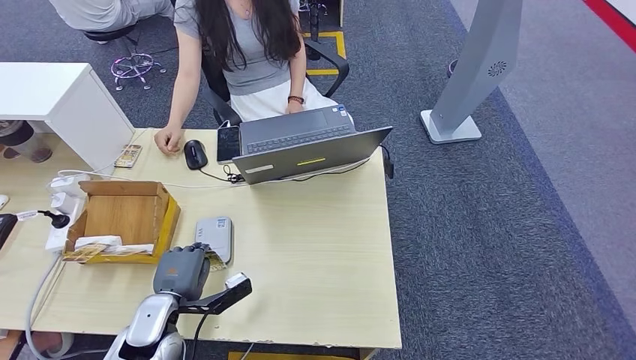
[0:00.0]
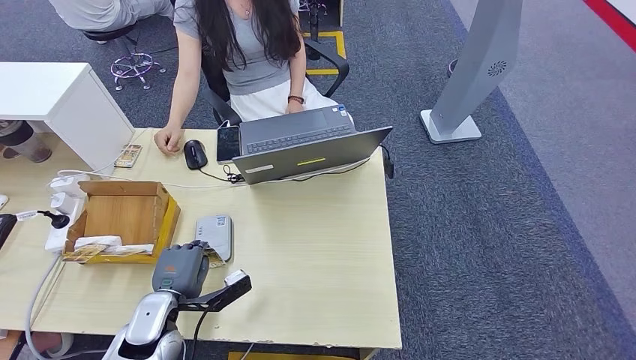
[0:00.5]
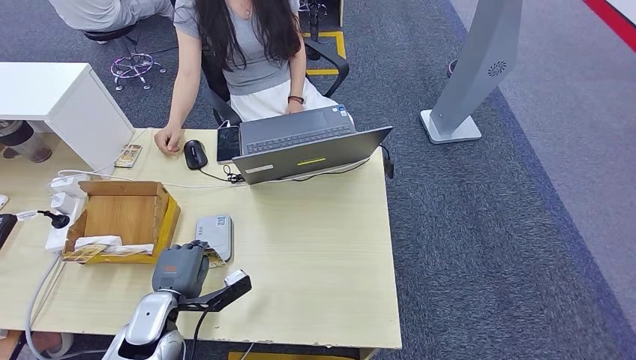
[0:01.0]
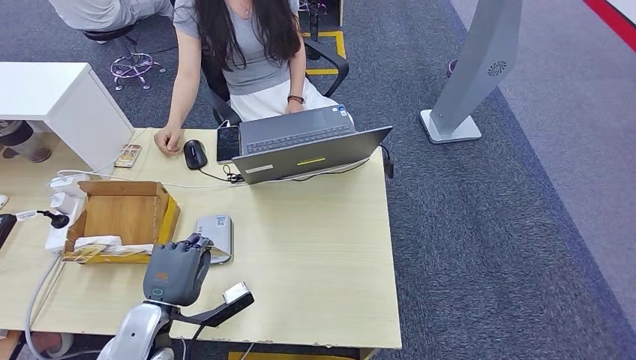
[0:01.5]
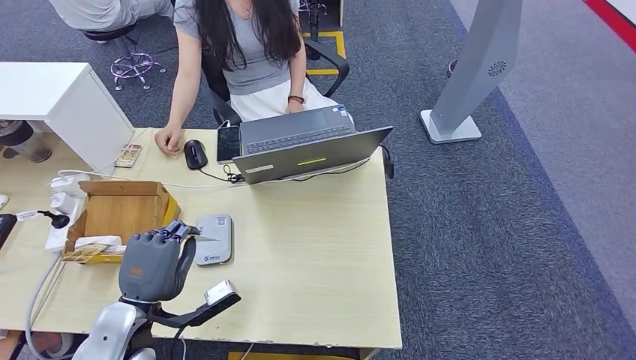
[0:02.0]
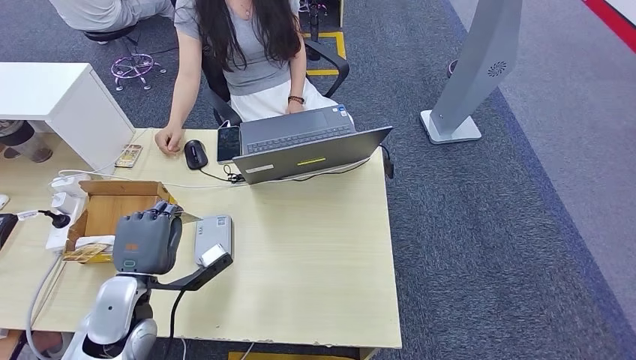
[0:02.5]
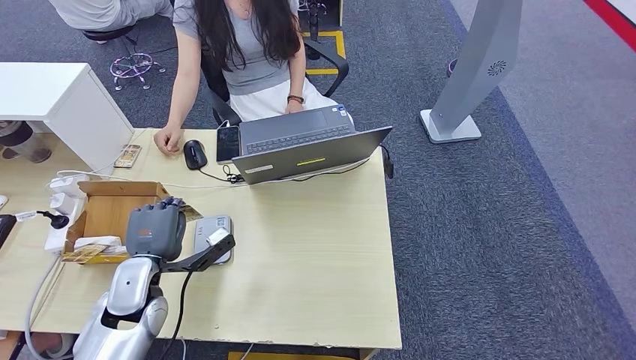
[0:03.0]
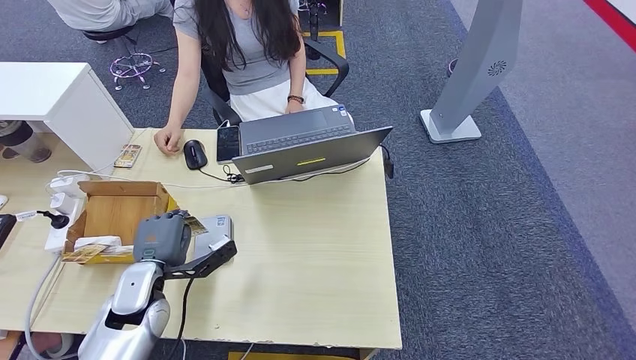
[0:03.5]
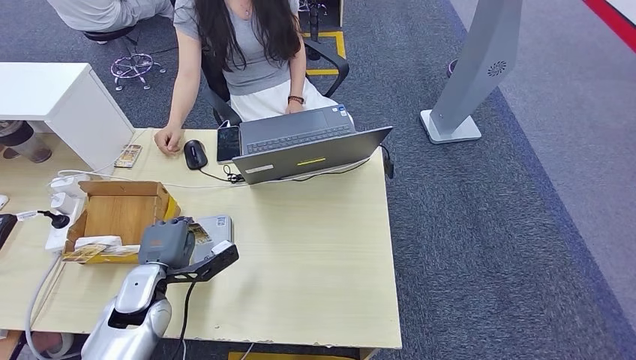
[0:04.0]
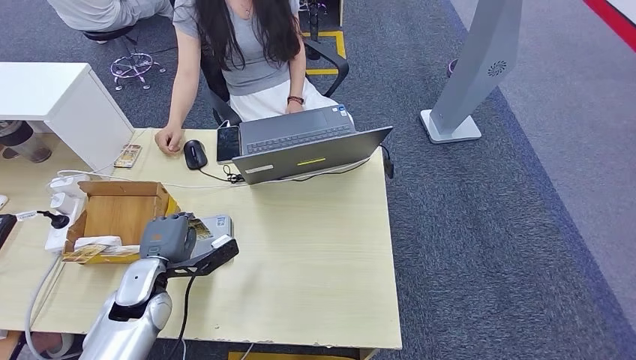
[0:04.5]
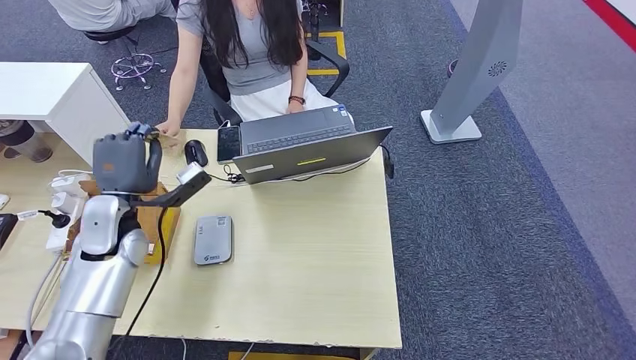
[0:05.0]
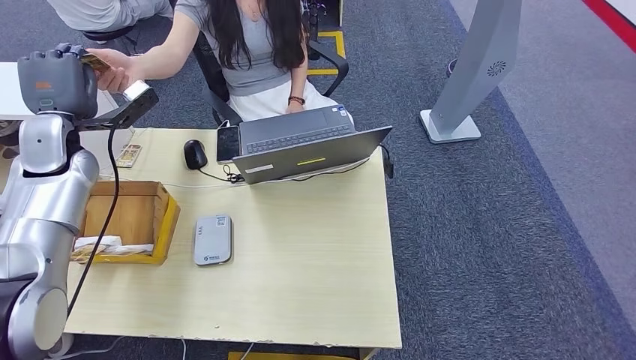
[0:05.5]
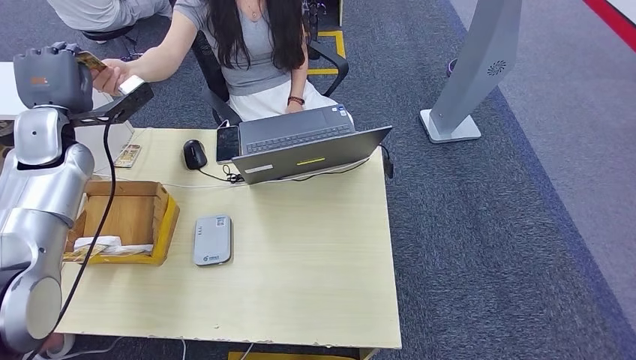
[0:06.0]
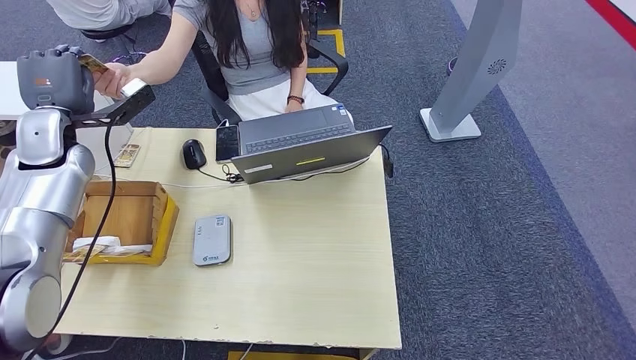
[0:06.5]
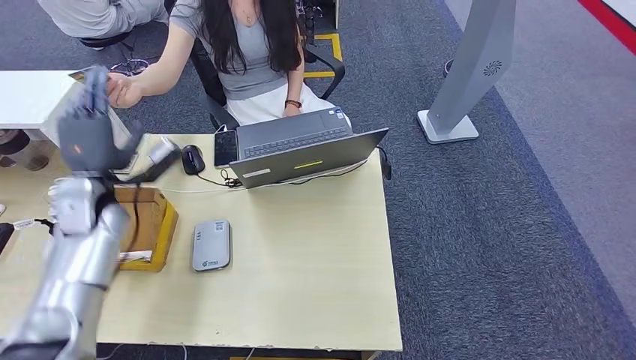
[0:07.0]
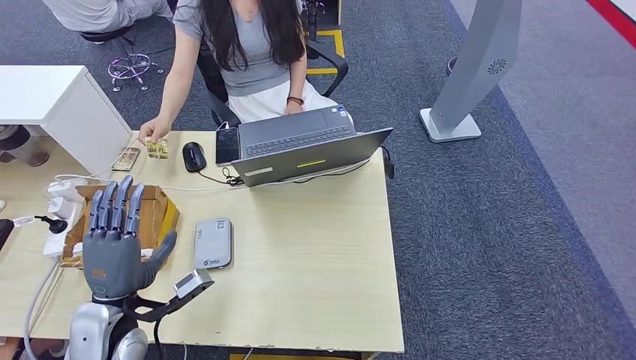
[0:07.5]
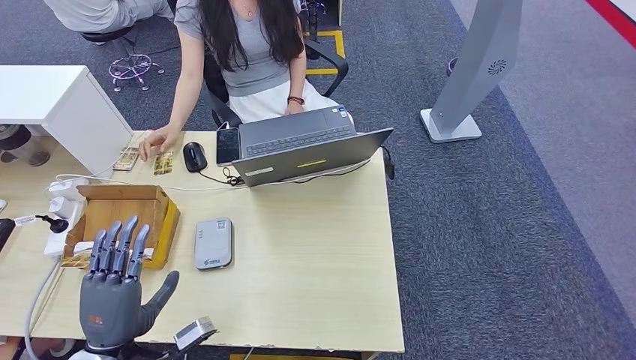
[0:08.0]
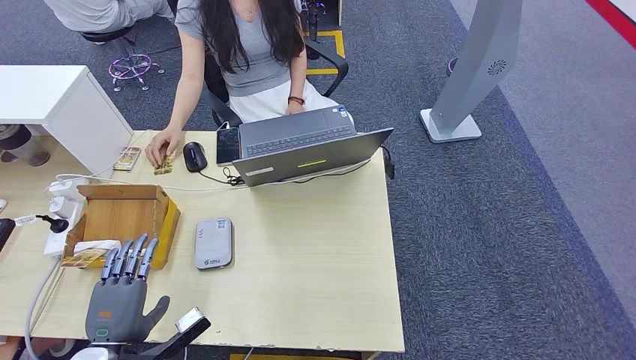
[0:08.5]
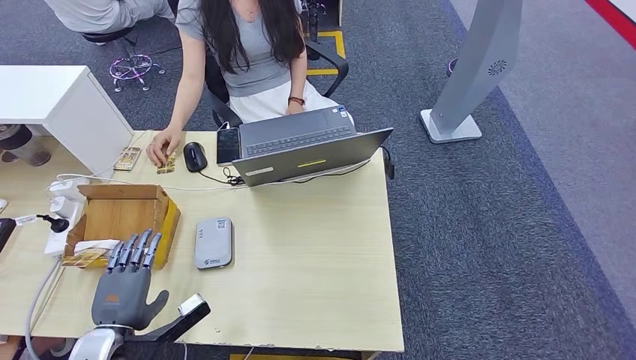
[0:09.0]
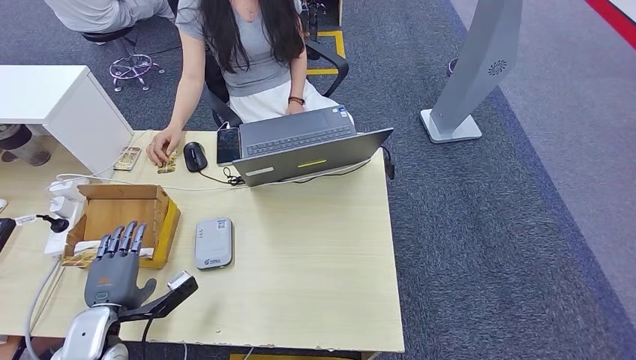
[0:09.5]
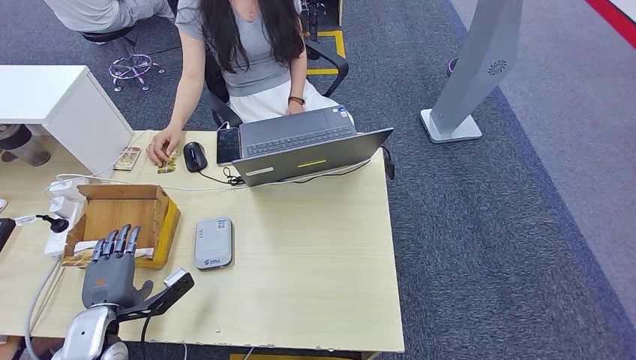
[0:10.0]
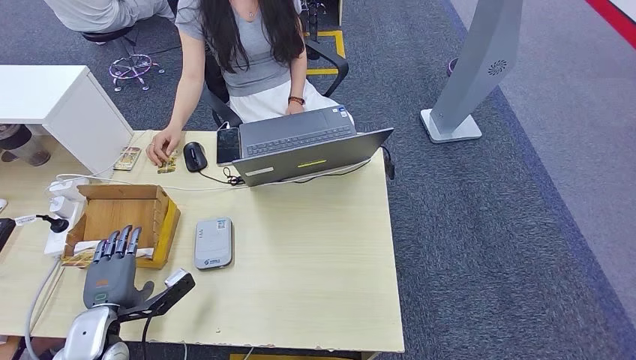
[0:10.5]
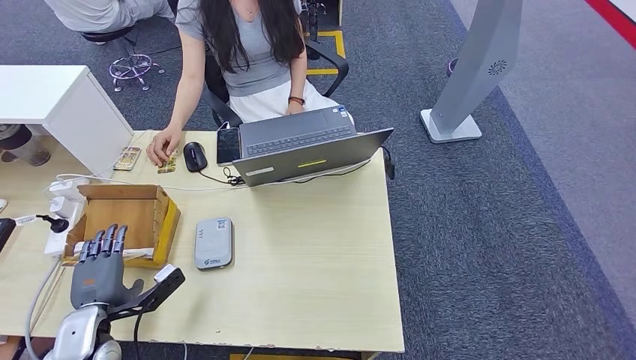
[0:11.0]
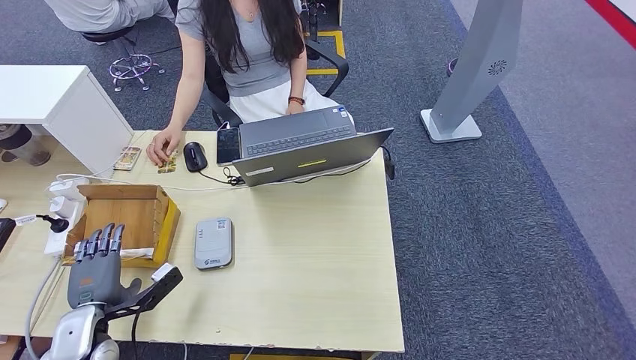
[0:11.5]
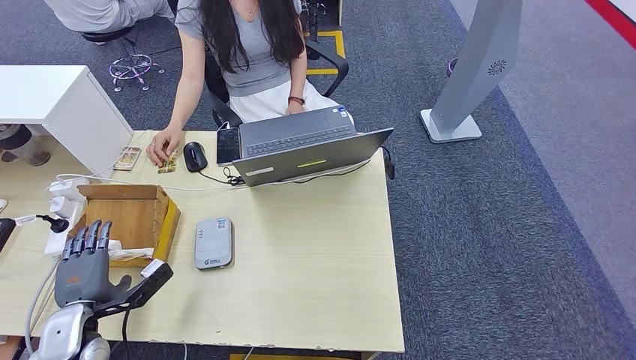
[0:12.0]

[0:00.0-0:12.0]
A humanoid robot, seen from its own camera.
Step, 0:02.0 to 0:07.0: Hand the ID card to the person.
0:00.0 to 0:02.0: The left hand travels upward by some 10 cm.
0:02.0 to 0:04.0: The left hand travels forward and downward by some 10 cm.
0:04.0 to 0:06.0: The left hand heads upward, forward and to the left, covering approximately 30 cm.
0:08.0 to 0:10.0: The left hand heads to the left, forward and downward, covering about 10 cm.
0:10.0 to 0:12.0: The hands stay close to where they were, moving slightly.

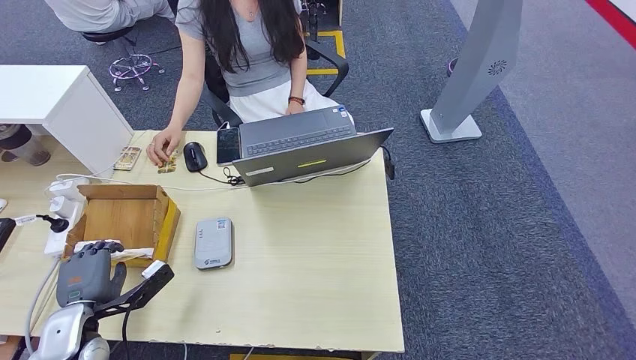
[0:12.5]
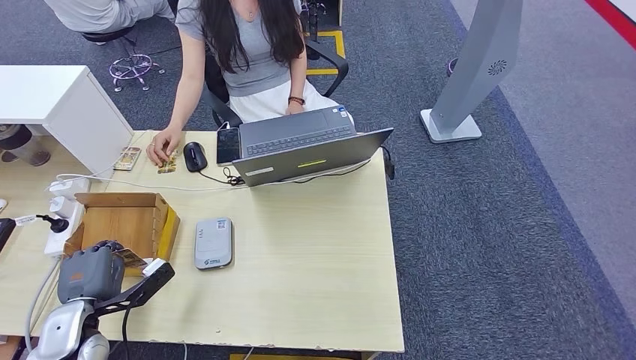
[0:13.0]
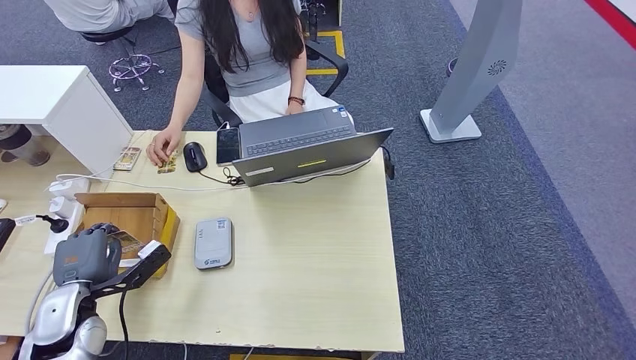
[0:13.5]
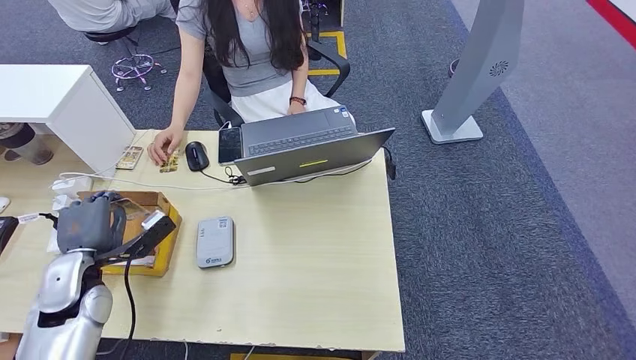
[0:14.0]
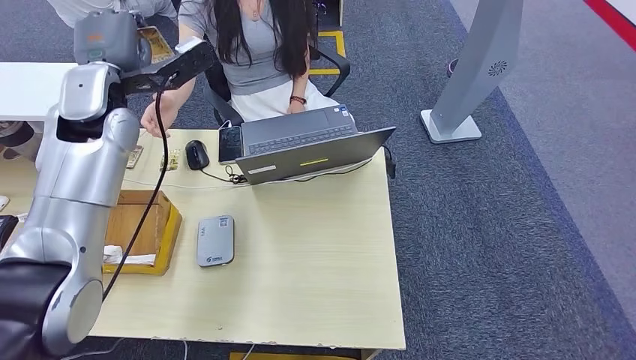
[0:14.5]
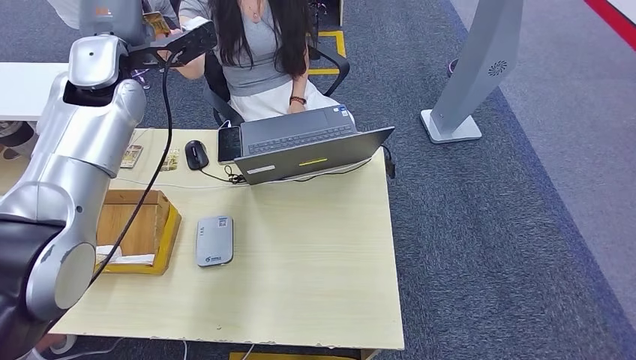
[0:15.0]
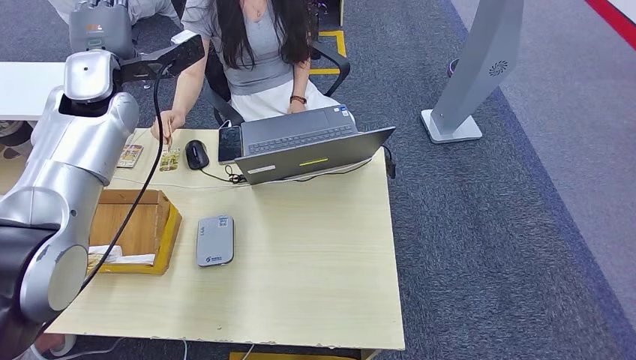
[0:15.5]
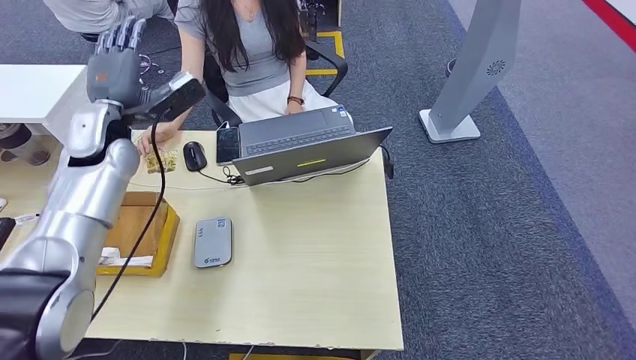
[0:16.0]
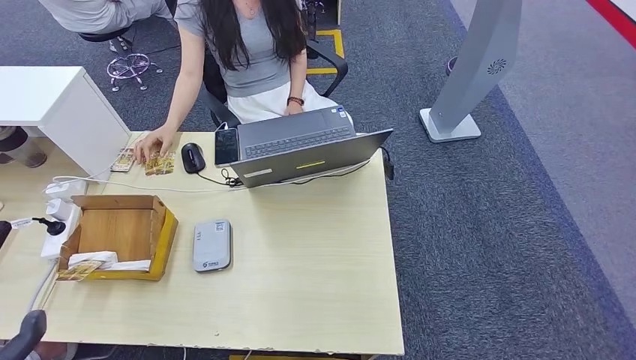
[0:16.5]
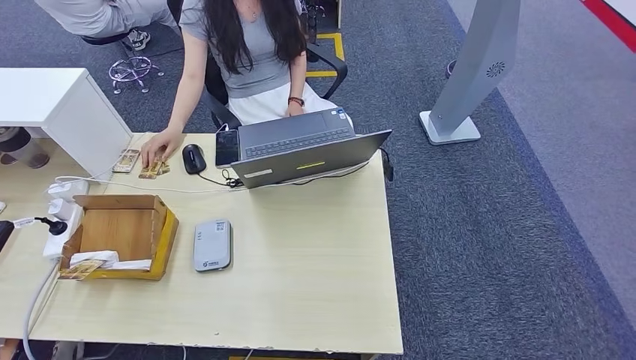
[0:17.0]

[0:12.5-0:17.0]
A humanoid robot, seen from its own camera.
Step, 0:12.5 to 0:14.5: Pick up the room key from the key card box.
Step, 0:15.0 to 0:17.0: Hand the room key to the person.
